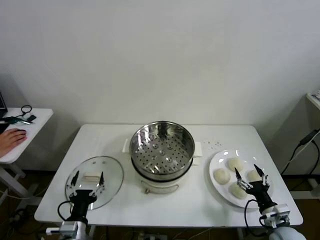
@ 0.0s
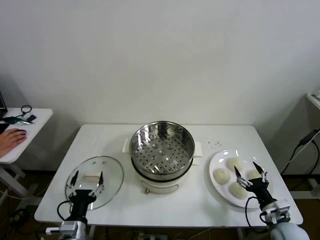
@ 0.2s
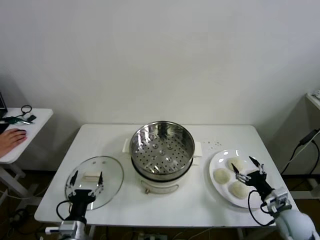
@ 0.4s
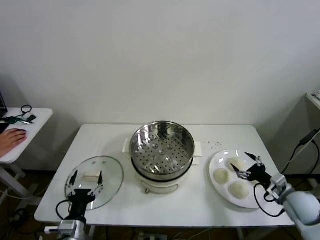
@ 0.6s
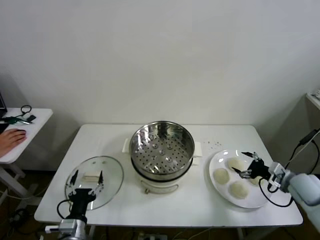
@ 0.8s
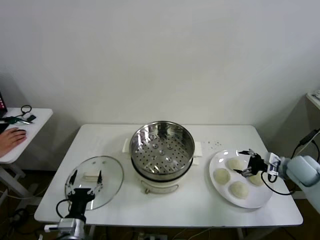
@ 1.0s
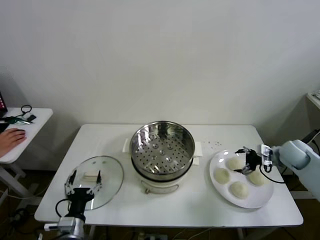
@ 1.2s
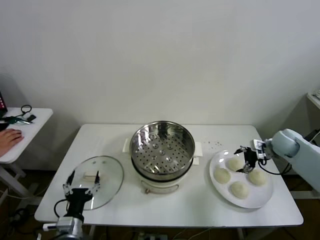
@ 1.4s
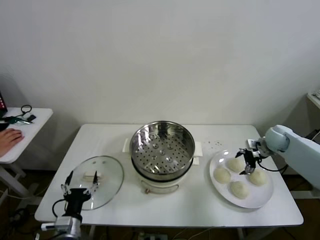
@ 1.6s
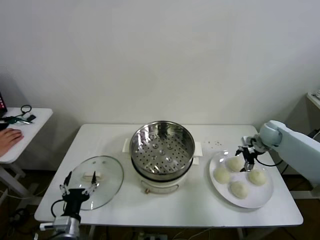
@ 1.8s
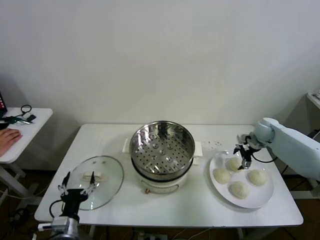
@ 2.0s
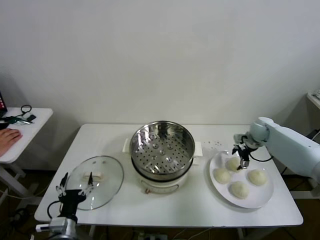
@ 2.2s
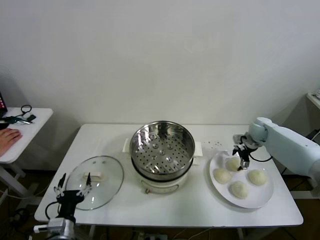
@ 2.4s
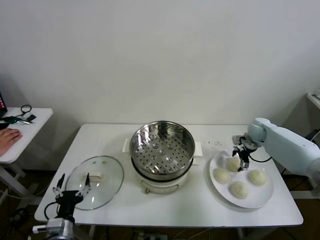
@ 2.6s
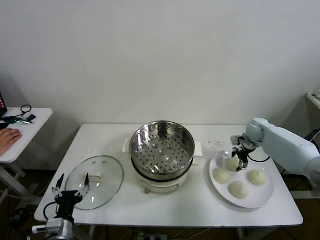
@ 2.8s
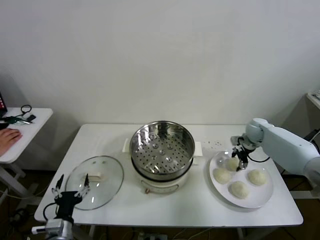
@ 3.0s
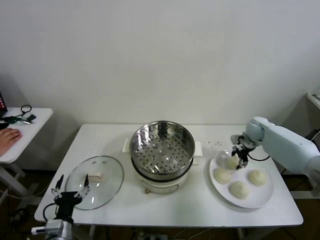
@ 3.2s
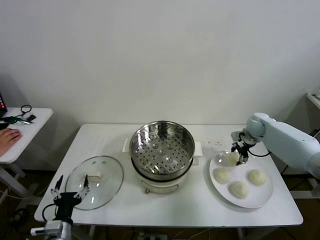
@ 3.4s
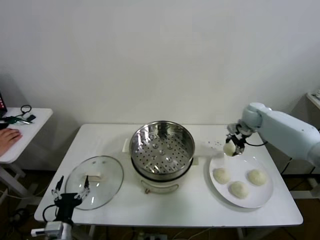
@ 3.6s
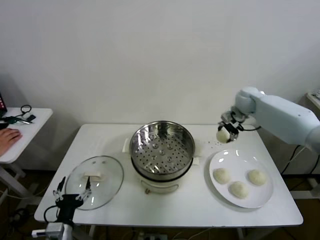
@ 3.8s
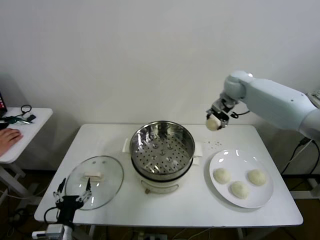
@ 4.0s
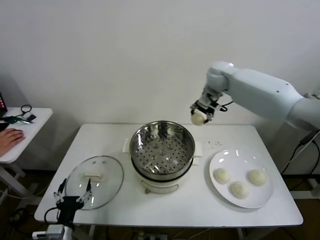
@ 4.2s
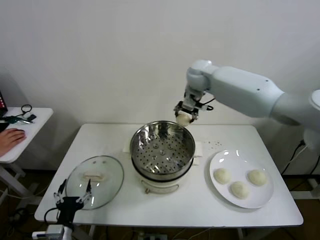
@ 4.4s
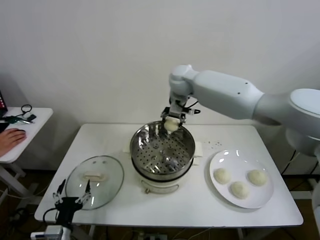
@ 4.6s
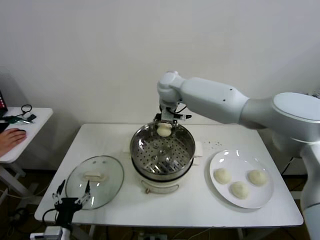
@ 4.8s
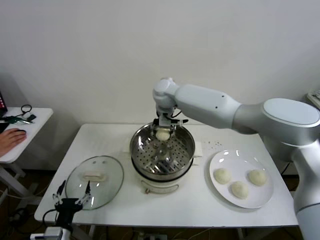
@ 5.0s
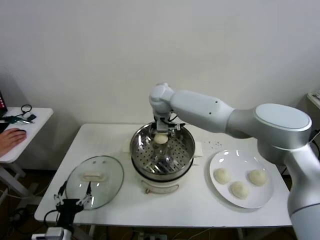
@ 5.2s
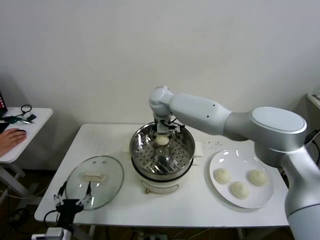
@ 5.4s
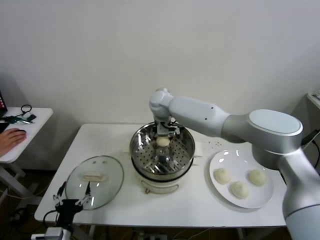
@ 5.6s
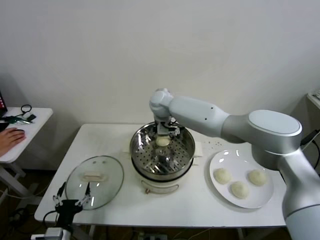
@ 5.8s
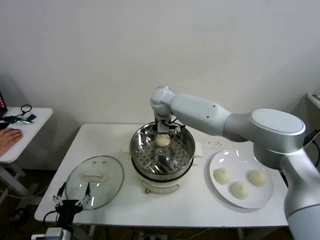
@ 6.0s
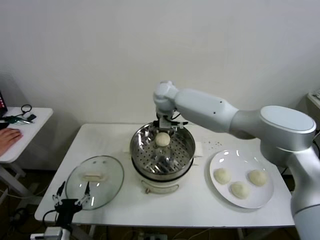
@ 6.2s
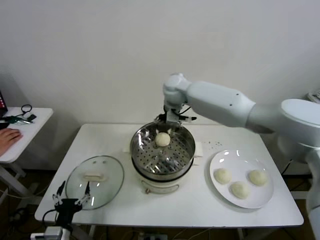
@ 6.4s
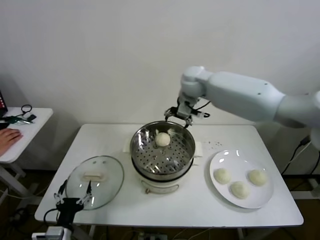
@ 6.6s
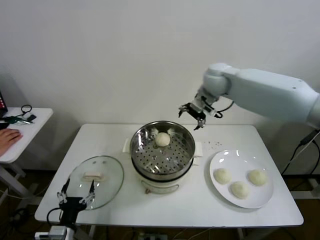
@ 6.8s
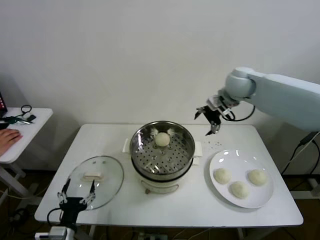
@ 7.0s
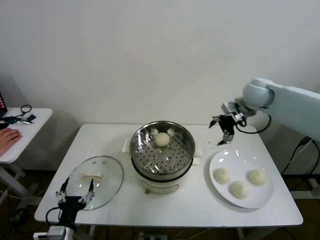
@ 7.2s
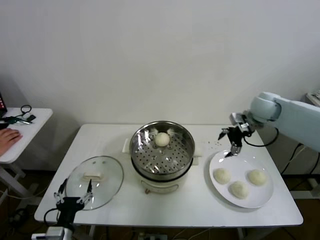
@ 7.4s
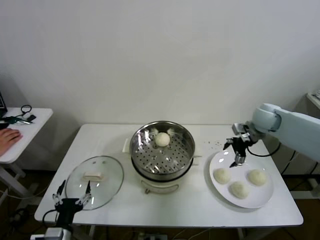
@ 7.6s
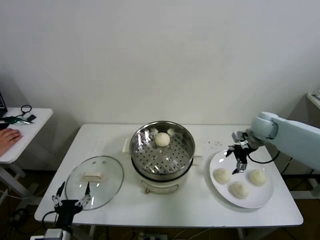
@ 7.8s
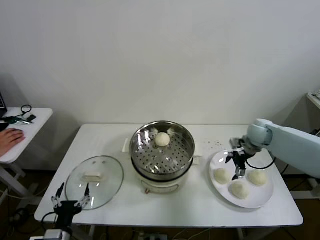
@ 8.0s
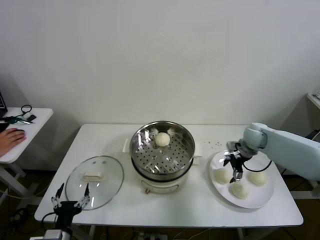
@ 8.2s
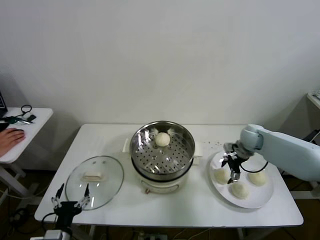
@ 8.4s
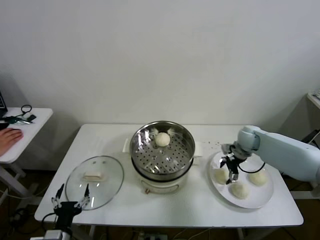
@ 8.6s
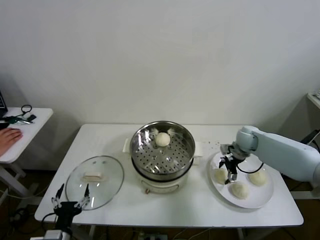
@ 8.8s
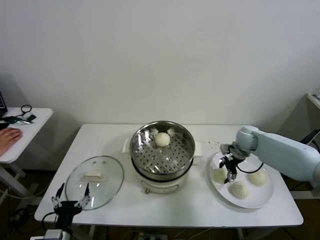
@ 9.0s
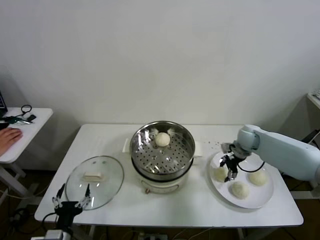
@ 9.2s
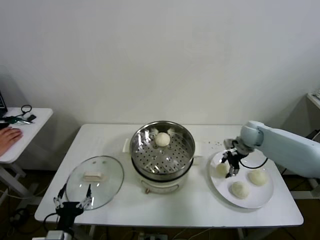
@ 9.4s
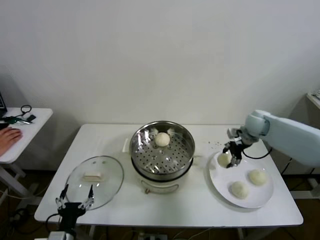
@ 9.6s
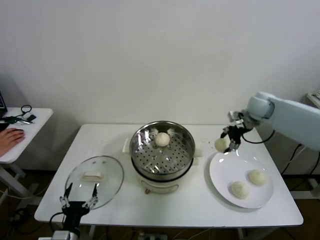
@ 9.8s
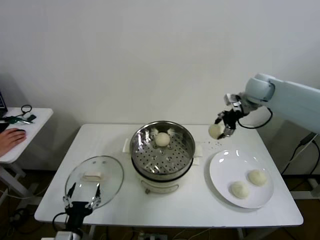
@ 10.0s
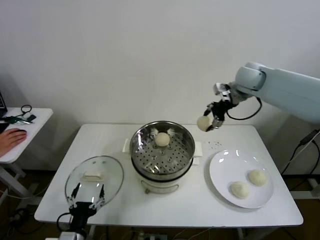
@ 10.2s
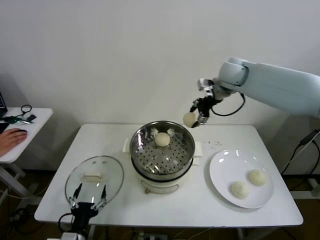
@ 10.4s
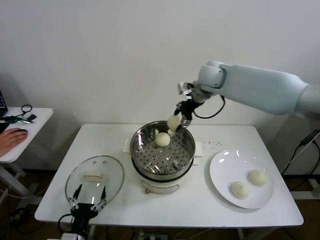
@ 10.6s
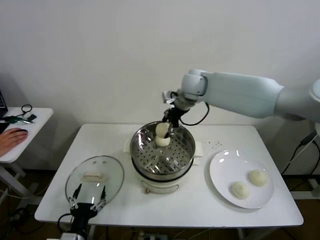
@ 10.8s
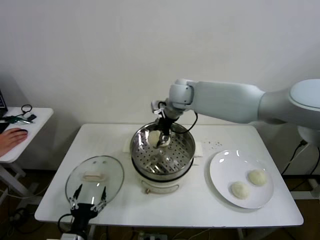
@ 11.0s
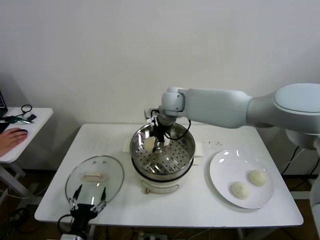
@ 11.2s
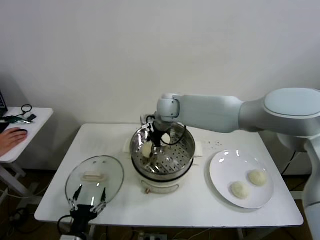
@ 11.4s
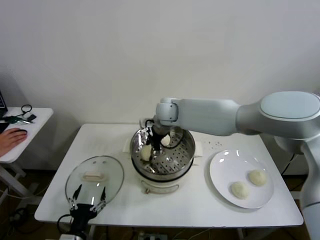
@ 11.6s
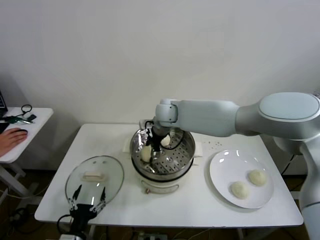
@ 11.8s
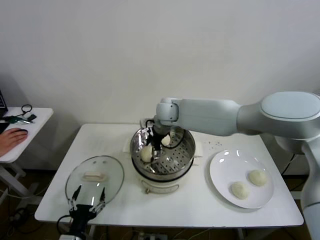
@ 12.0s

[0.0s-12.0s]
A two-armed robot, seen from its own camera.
Step, 0.0s to 3.0s: Grasp the baozi in the plate with right gripper.
Step, 3.4s to 5.8s: Place the baozi on the steamer with right gripper.
Step, 6.2s to 9.0s: Grasp the baozi in the plate with right gripper.
Step, 9.2s to 11.8s: Place the baozi on the steamer with right gripper.
1.6s to 3.0s: The right gripper goes about 5 cm forward, and closes.
3.0s to 4.4s: The right gripper moves to the left and upward, roughly 40 cm.
4.4s to 6.0s: The right gripper shifts some 10 cm to the left and downward, and opens.
6.0s to 7.6s: The right gripper is displaced to the right by about 35 cm.
7.6s to 9.0s: The right gripper is displaced downward by approximately 10 cm, and closes.
9.0s to 10.4s: The right gripper shifts some 30 cm upward and to the left.
10.4s to 12.0s: The right gripper heads to the left and downward, covering roughly 20 cm, and opens up.

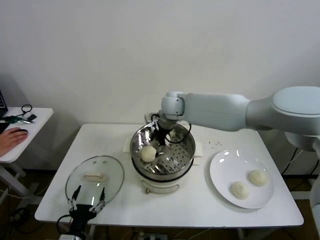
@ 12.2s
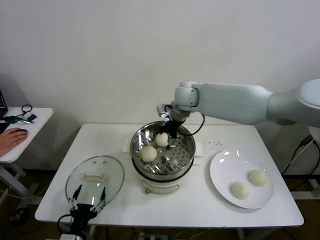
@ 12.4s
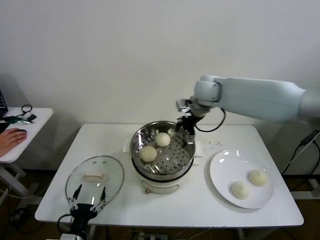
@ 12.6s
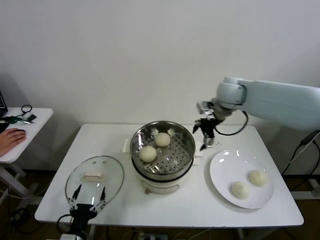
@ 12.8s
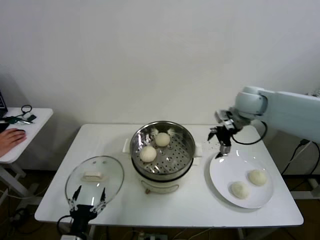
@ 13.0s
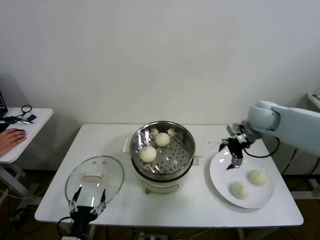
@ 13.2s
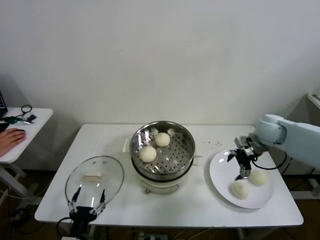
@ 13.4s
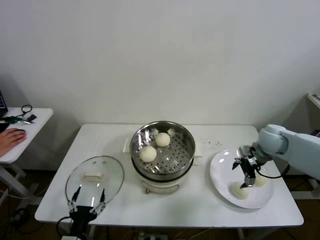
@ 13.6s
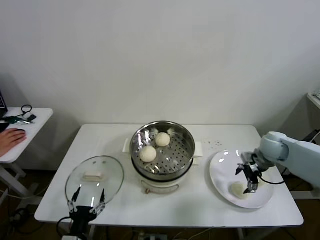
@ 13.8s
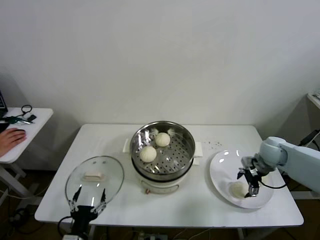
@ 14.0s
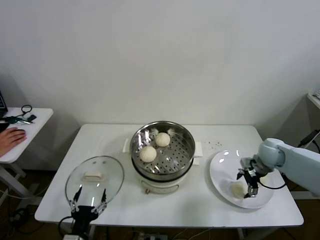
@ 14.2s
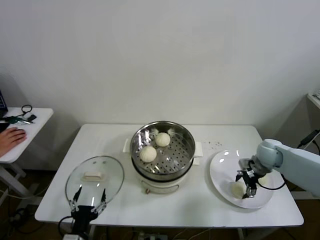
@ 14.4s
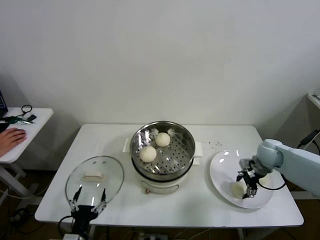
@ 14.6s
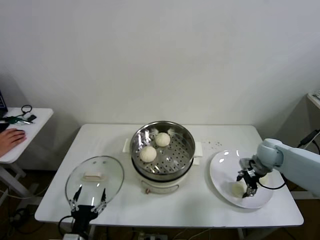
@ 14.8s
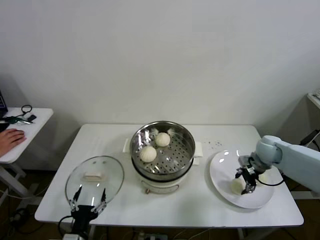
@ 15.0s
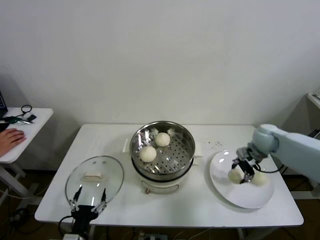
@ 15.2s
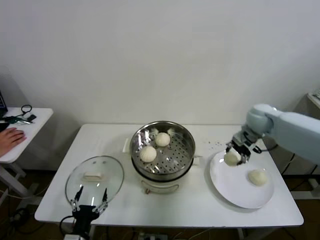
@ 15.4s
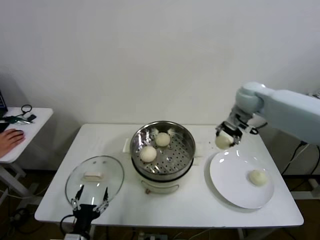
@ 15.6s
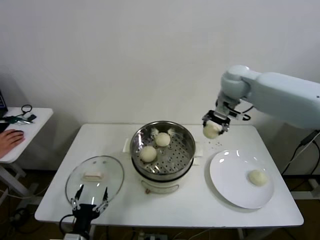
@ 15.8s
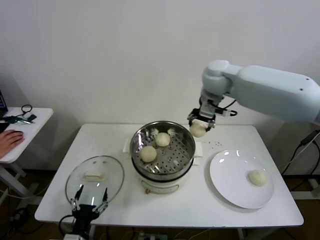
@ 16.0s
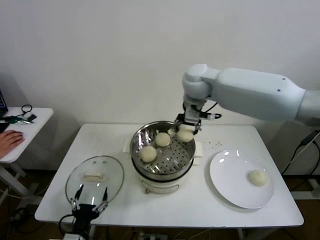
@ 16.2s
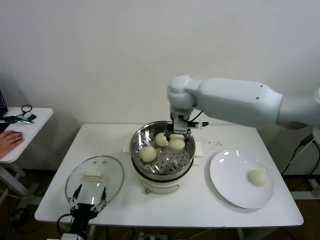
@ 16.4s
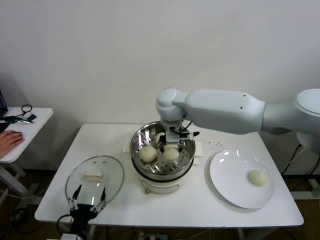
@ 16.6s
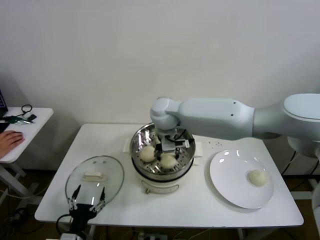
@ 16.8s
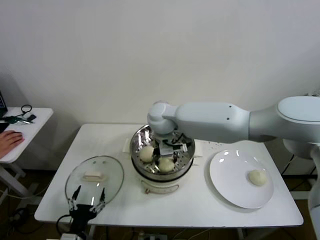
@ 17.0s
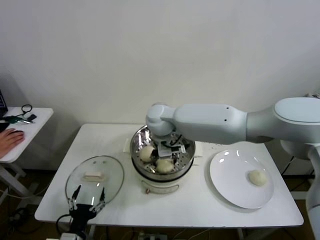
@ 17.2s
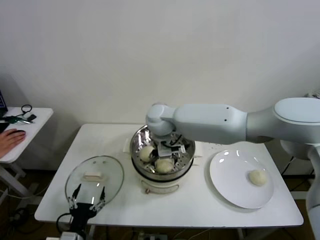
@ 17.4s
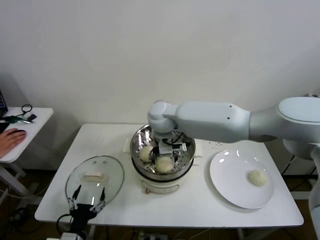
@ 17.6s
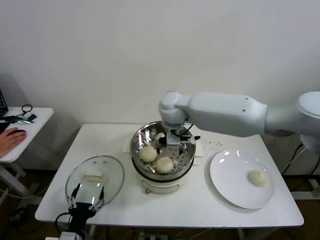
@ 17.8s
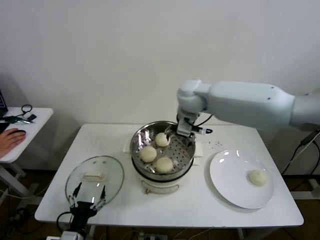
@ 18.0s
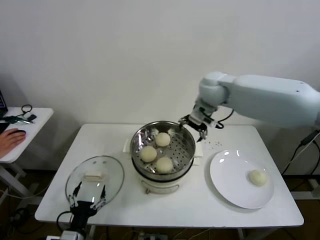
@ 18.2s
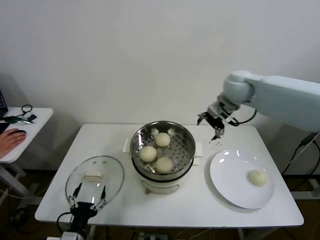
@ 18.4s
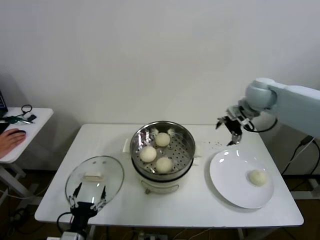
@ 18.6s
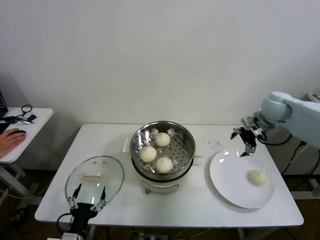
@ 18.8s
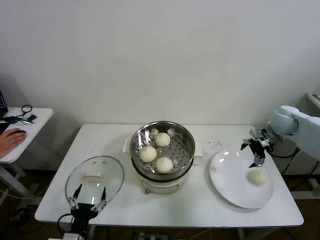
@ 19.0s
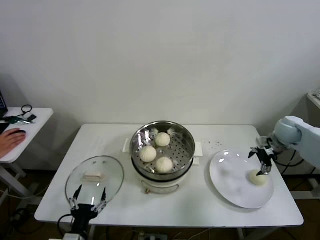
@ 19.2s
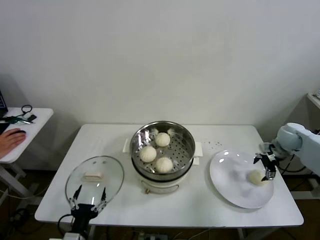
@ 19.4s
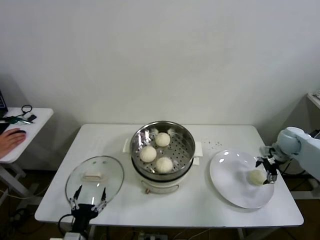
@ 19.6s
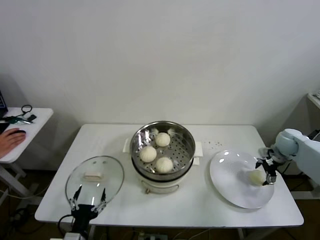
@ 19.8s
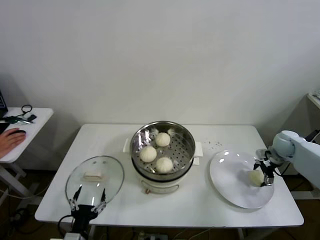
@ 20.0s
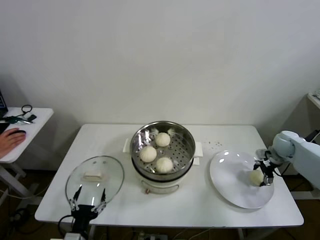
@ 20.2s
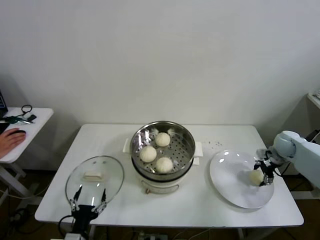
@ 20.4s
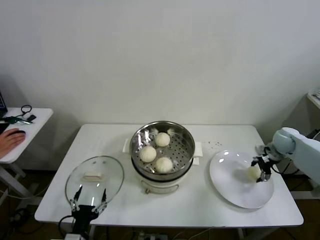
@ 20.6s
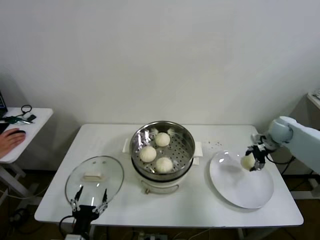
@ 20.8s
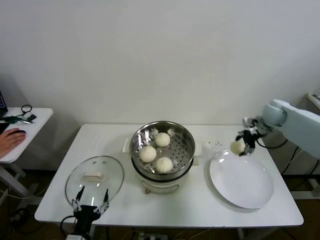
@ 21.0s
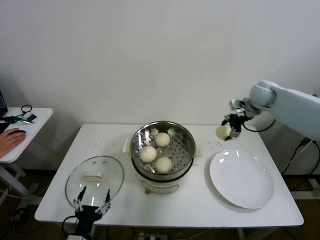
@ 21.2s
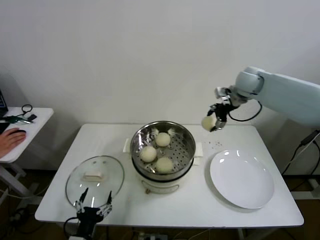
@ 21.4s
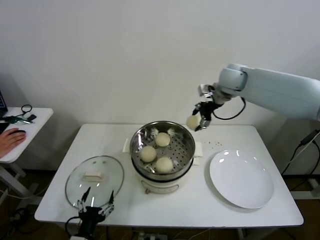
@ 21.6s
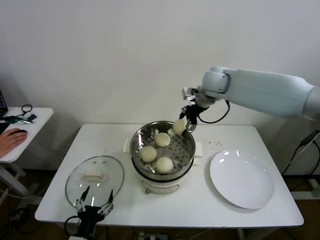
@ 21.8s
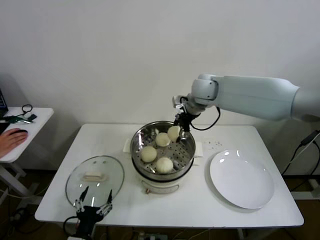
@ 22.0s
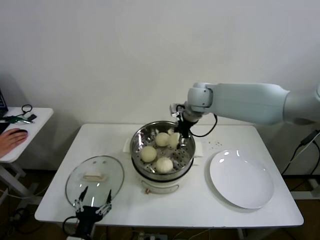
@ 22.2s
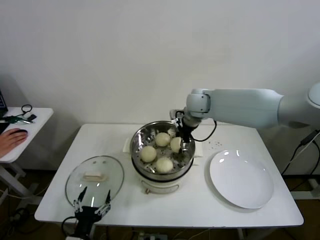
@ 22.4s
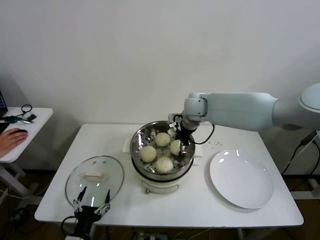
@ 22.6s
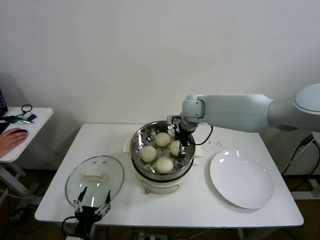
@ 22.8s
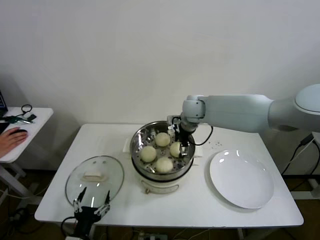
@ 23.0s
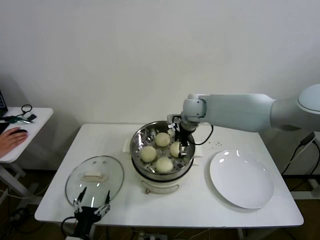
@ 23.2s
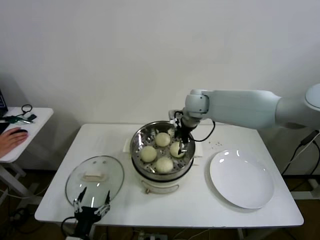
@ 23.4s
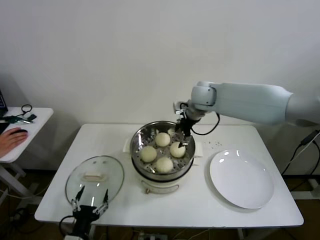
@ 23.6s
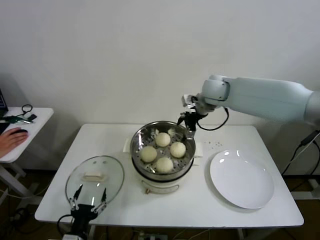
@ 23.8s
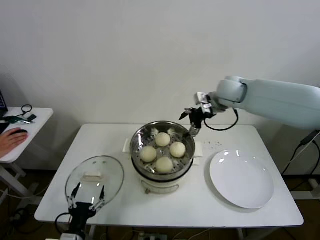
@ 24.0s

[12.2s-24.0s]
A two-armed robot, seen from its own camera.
Step, 12.2s to 14.6s: Grasp the baozi in the plate with right gripper.
Step, 14.8s to 17.4s: Place the baozi on the steamer with right gripper.
Step, 17.6s to 20.2s: Grasp the baozi in the plate with right gripper.
Step, 20.4s to 23.2s: Place the baozi on the steamer with right gripper.
12.2s to 13.6s: The right gripper moves to the right, about 35 cm.
13.6s to 15.2s: The right gripper closes its fingers.
15.2s to 16.6s: The right gripper is displaced to the left by about 35 cm.
16.6s to 18.2s: The right gripper is displaced to the right by about 15 cm, and opens its fingers.
18.2s to 19.6s: The right gripper goes roughly 40 cm to the right and downward.
19.6s to 21.0s: The right gripper travels upward, to the left and forward by approximately 10 cm, and closes.
21.0s to 22.6s: The right gripper is displaced to the left by roughly 30 cm.
22.6s to 24.0s: The right gripper moves to the right and upward, roughly 10 cm, and opens its fingers.
